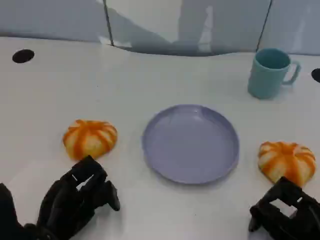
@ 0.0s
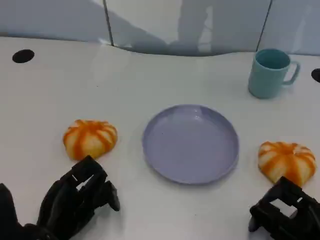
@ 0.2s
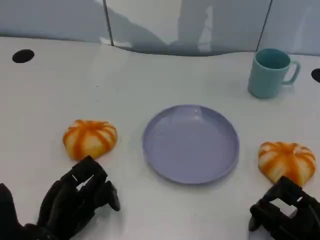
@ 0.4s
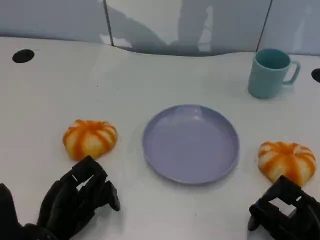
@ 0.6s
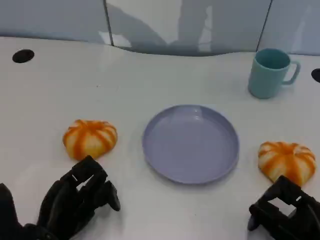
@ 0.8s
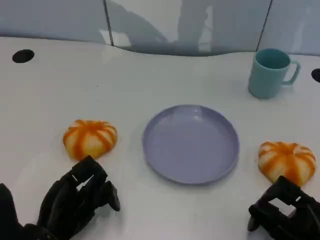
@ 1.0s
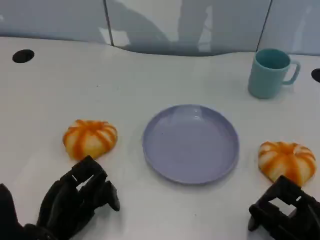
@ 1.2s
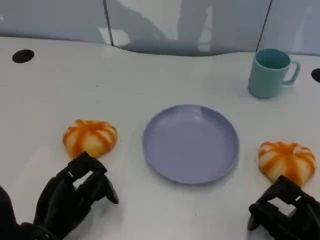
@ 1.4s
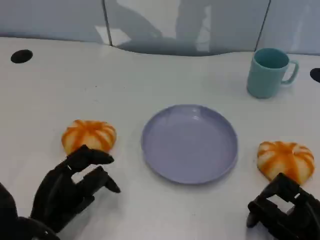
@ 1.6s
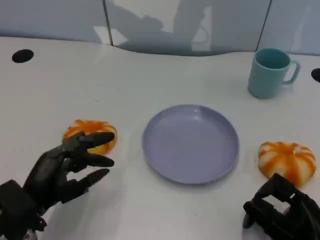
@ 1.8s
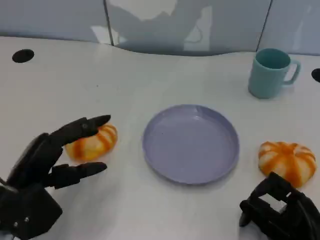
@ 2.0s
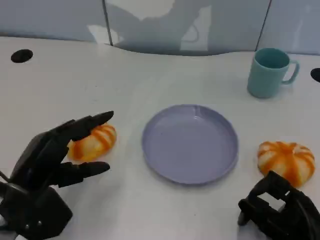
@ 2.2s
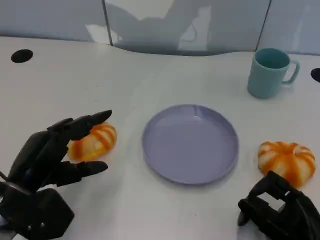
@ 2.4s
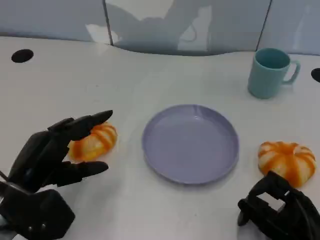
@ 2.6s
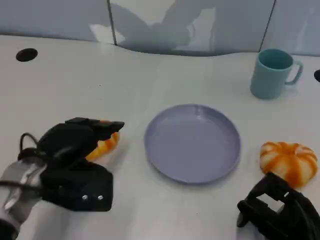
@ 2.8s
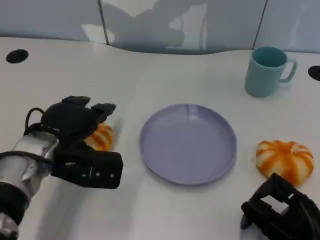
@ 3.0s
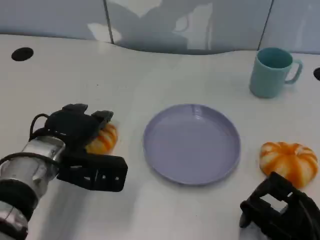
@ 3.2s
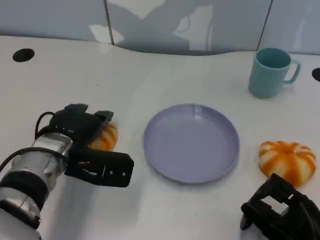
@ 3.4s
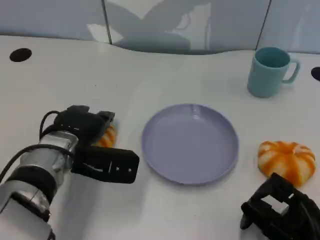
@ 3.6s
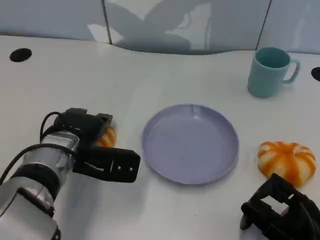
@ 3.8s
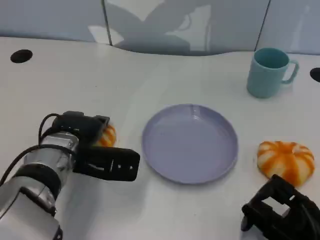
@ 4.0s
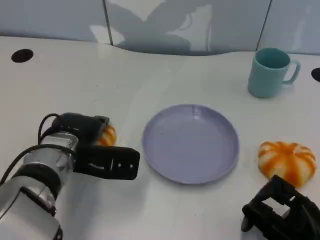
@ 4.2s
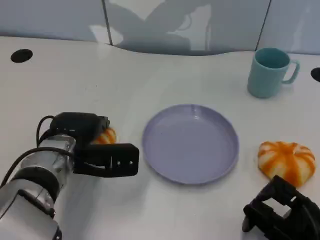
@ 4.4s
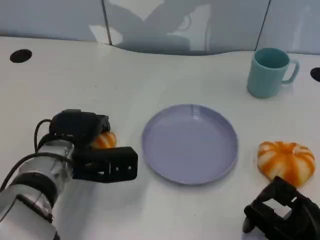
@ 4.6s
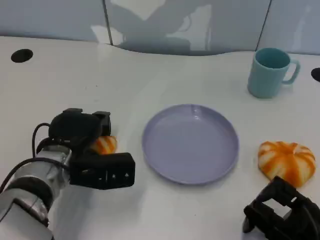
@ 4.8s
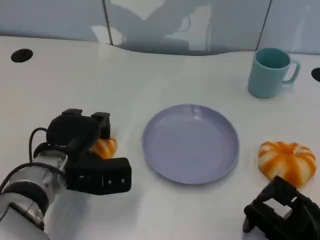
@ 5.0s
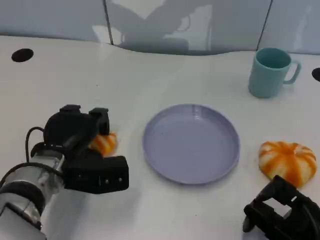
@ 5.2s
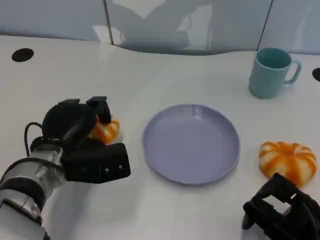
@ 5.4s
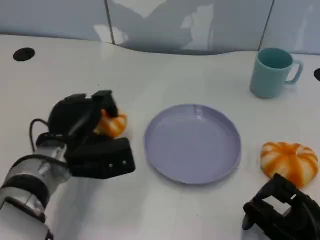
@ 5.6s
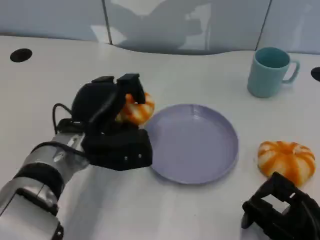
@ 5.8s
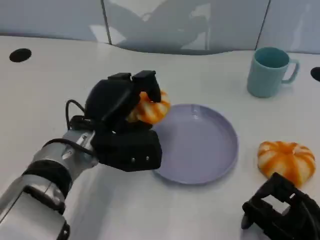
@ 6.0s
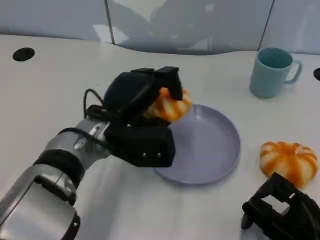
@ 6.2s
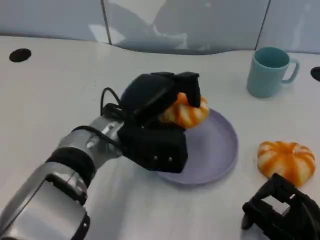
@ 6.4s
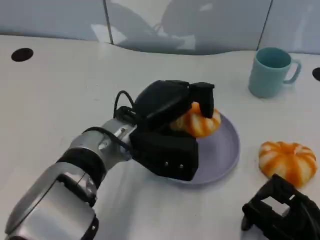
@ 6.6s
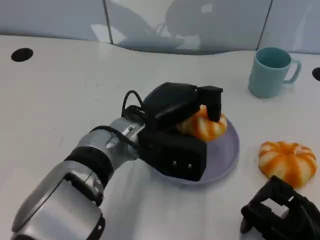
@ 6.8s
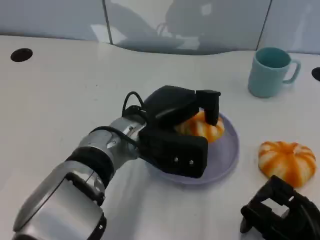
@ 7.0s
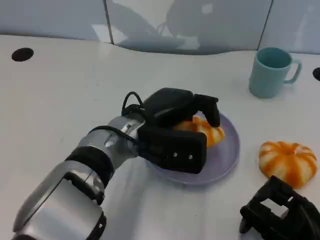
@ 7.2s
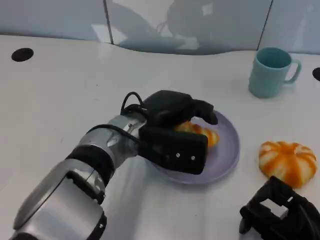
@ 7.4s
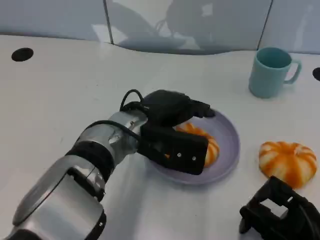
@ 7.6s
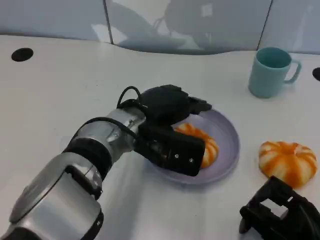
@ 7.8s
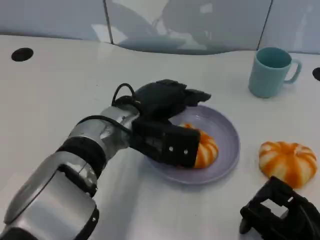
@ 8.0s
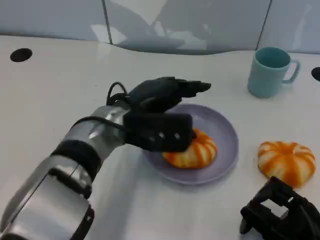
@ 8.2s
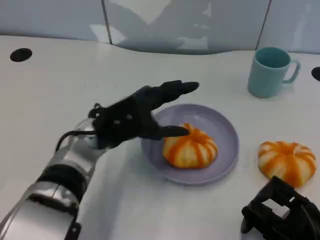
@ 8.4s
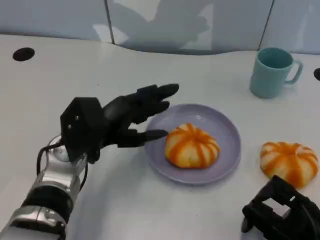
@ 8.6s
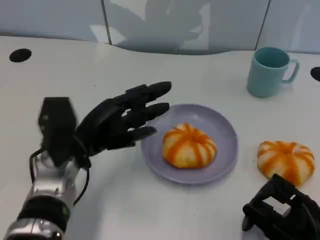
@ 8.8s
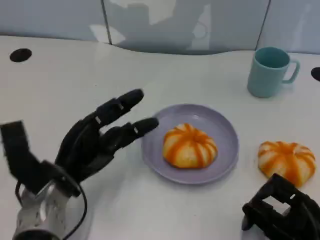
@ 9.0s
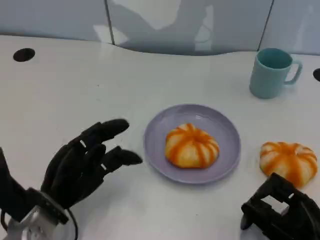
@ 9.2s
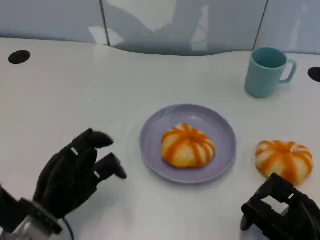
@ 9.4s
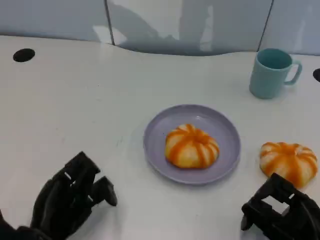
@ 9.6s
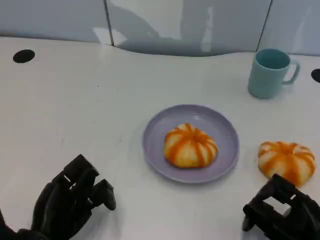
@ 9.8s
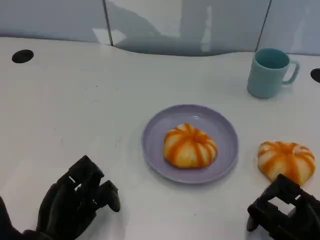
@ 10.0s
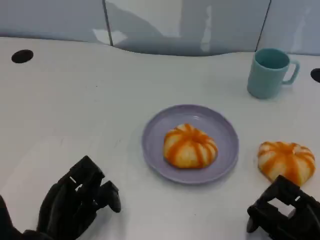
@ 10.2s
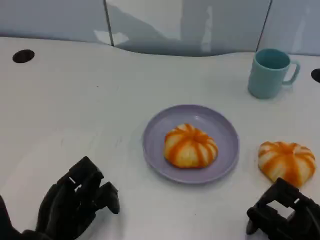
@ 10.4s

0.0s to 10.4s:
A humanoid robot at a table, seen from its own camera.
Task of the whole recording: Grasp the bread from the table and place it into the plate.
0.0s to 1.4s: The hands move only a little.
1.4s to 3.0s: The left hand is displaced forward and upward by some 15 cm.
3.0s to 4.4s: The hands stay close to where they were, moving slightly.
4.4s to 6.0s: The left hand changes place by roughly 5 cm.
6.0s to 7.4s: The left hand travels to the right by roughly 5 cm.
7.4s to 9.0s: The left hand is displaced to the left and downward by approximately 15 cm.
9.0s to 10.4s: The left hand moves backward, roughly 10 cm.

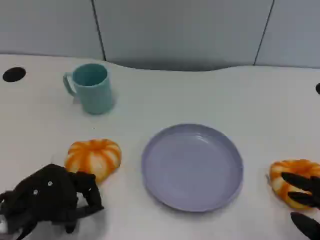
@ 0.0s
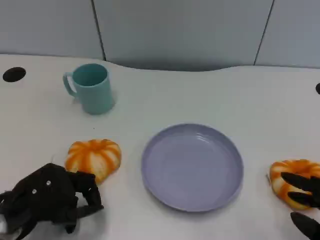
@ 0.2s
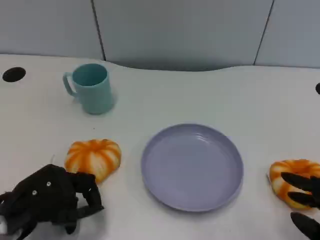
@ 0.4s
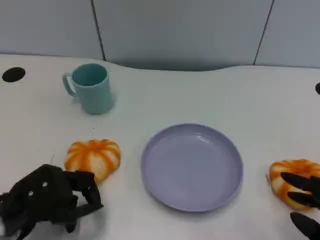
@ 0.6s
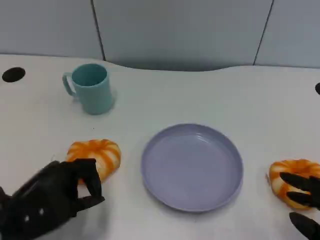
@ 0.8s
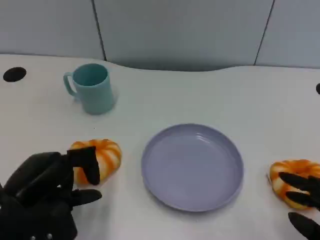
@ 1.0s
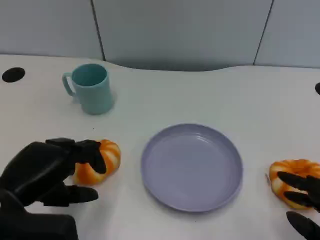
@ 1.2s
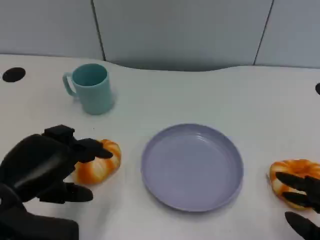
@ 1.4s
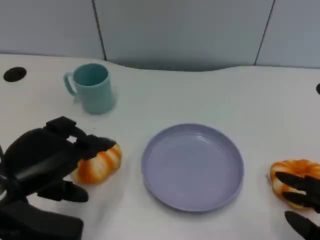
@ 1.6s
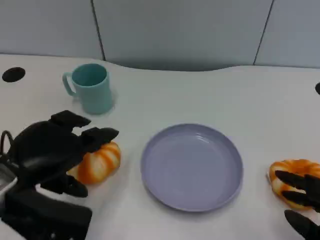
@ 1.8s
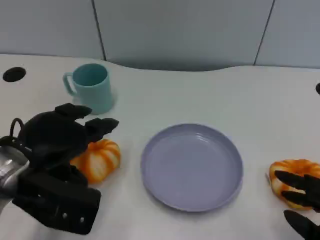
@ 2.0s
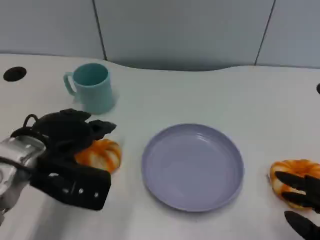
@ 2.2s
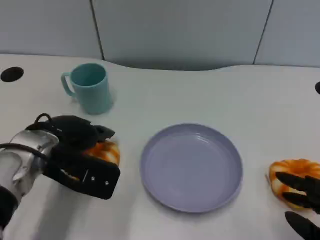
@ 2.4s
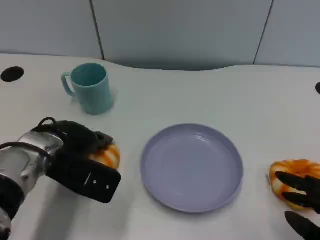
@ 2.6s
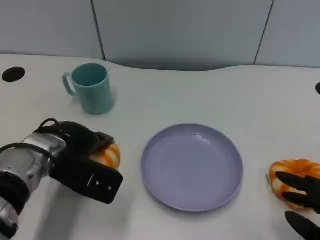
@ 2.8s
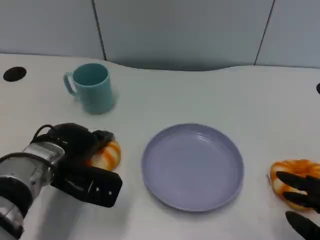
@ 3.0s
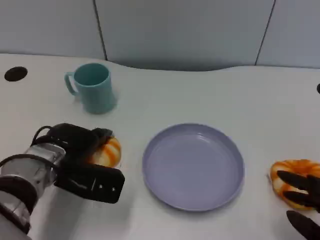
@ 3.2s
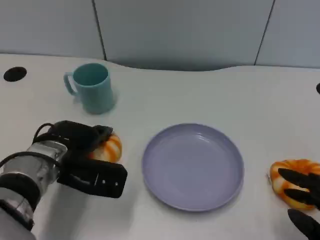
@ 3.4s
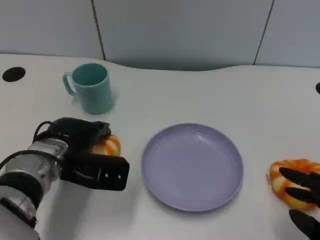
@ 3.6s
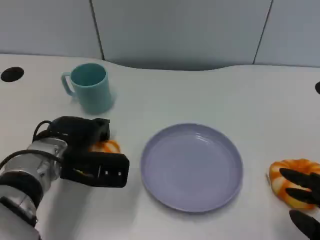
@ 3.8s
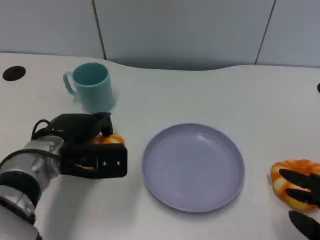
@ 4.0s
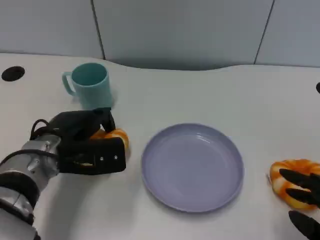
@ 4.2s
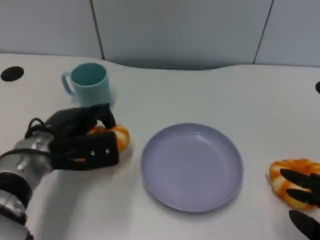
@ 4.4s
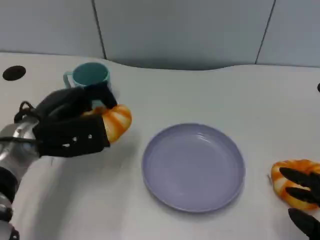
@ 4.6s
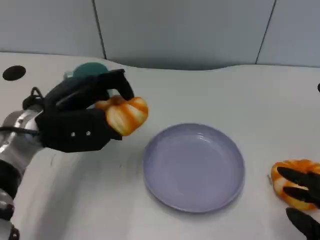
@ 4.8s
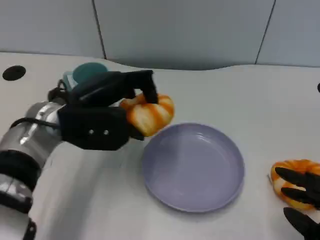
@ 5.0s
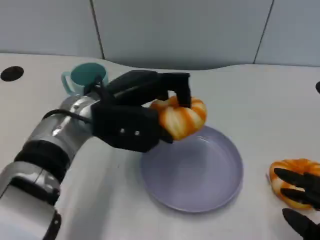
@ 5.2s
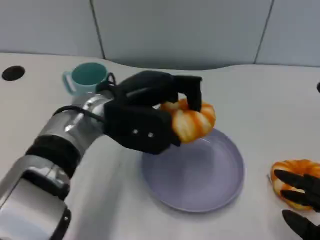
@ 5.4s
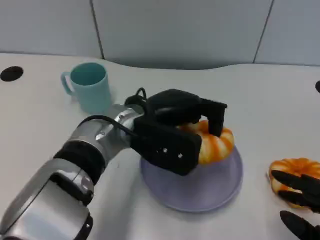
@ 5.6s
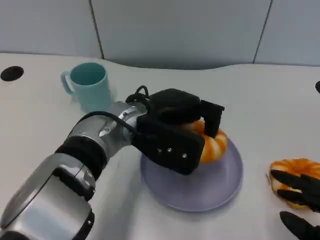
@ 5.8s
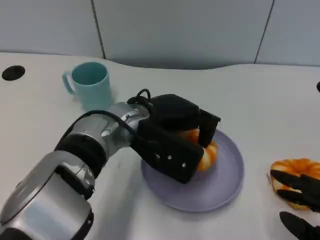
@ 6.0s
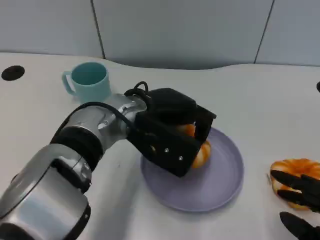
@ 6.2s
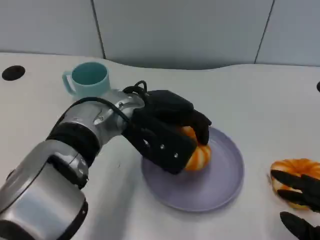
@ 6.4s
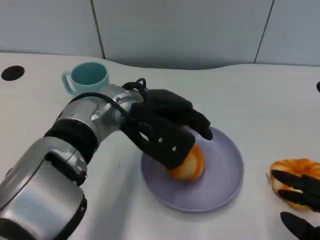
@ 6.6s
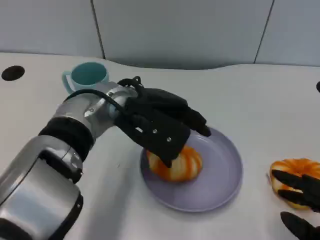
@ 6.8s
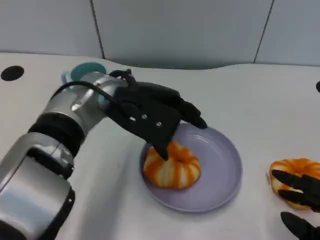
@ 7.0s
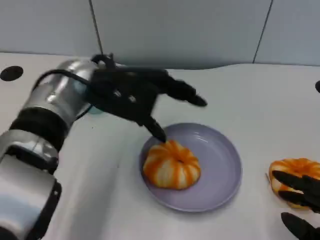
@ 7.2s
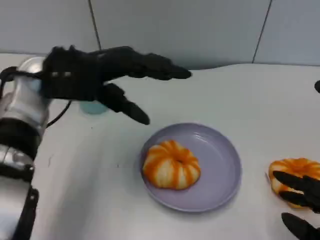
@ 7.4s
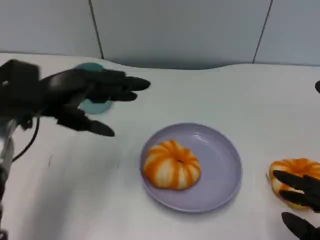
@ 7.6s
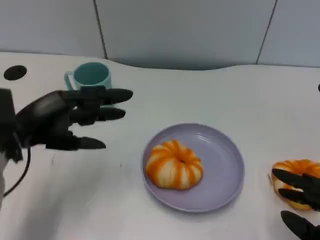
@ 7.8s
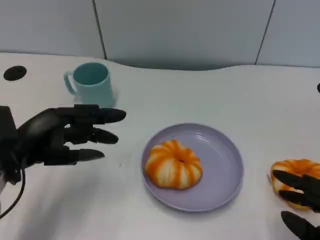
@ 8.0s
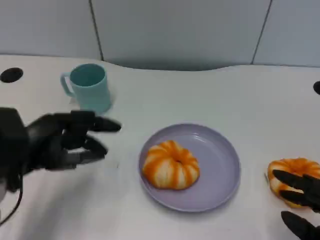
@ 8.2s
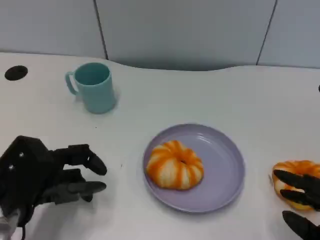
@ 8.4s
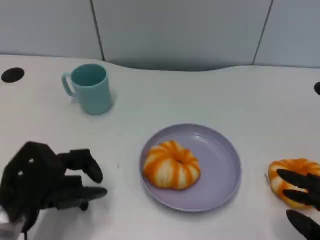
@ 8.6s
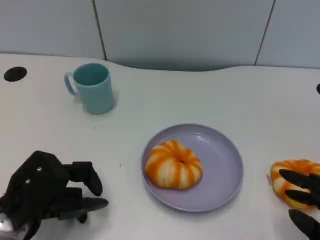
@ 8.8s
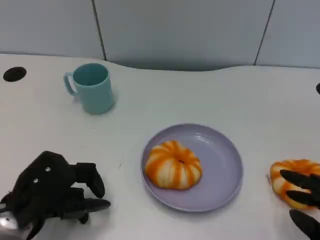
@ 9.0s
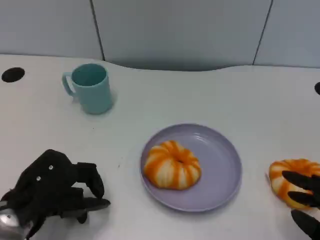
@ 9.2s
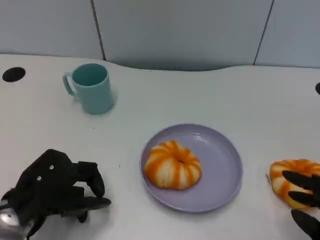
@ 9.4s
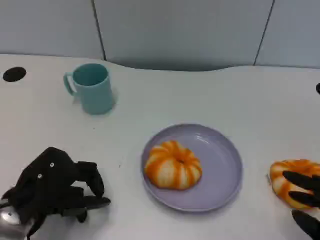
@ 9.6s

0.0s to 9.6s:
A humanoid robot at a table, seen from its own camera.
Task of the whole recording: Grasp the bread from the table and place it into the plate.
0.0s to 1.6s: The left hand moves upward, about 5 cm.
1.6s to 3.2s: The left hand moves forward and downward, some 10 cm.
3.2s to 4.8s: The left hand shifts some 5 cm upward.
4.8s to 6.4s: The left hand shifts about 10 cm to the right.
6.4s to 8.0s: The left hand moves to the left, approximately 20 cm.
8.0s to 9.6s: The left hand travels downward by some 5 cm.

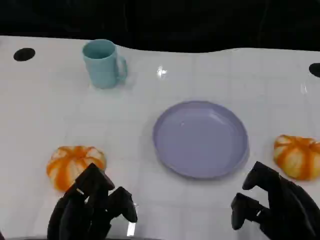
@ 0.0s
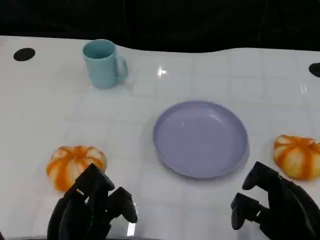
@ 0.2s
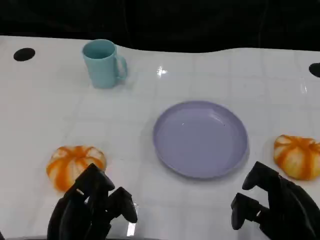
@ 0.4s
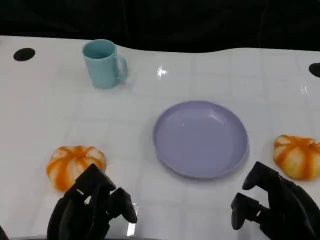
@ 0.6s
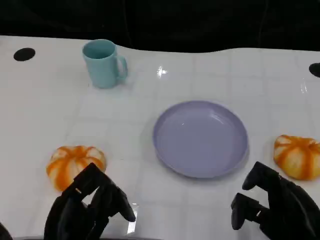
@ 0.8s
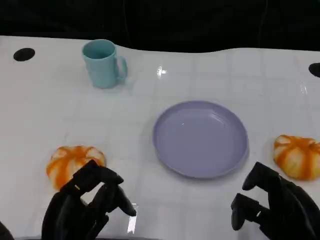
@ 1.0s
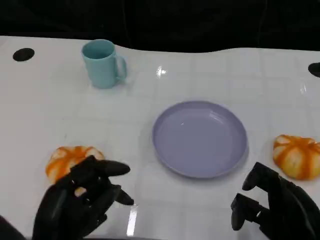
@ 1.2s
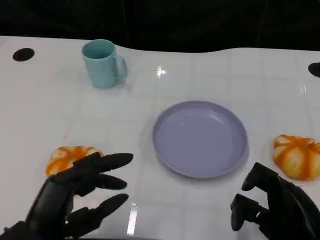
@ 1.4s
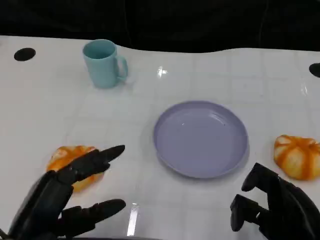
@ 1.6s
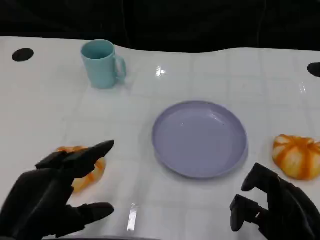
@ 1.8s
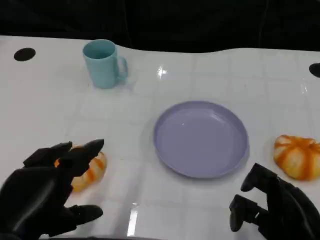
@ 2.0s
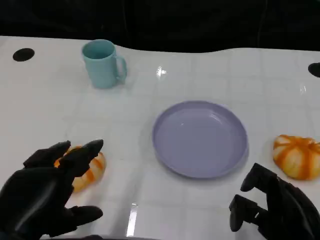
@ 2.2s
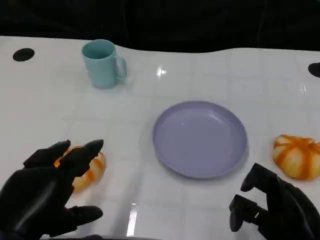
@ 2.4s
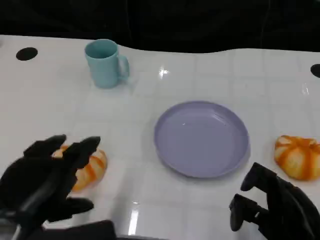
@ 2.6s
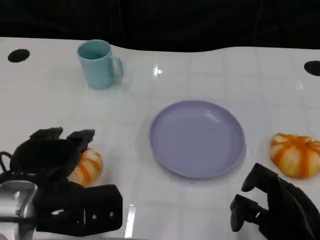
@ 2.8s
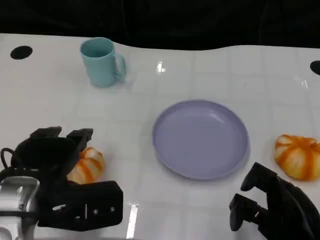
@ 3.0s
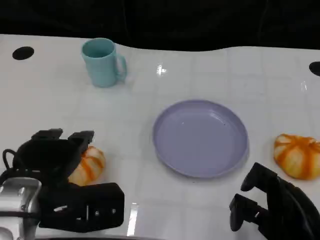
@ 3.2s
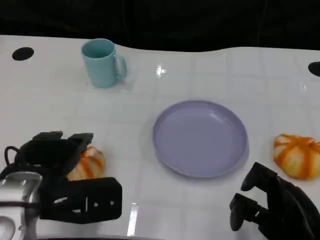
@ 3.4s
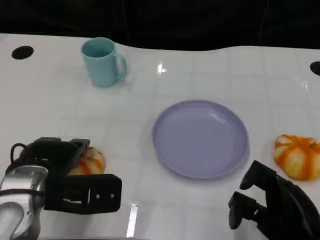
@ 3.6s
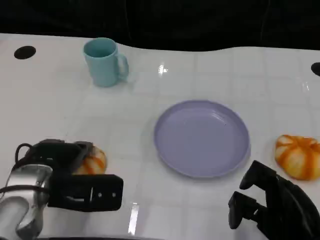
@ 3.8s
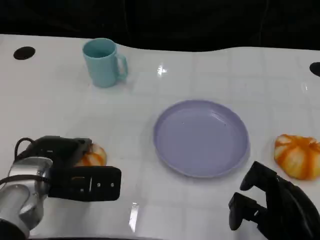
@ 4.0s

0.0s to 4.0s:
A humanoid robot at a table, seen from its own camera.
Task of the whole recording: Grasp the bread from the table and place it into the plate.
0.0s to 1.4s: The left hand is displaced upward by approximately 5 cm.
1.4s to 2.6s: The left hand ends up about 5 cm from where it was.
2.6s to 4.0s: The left hand is displaced forward and downward by about 10 cm.
